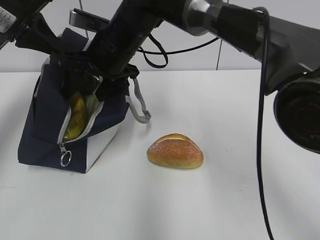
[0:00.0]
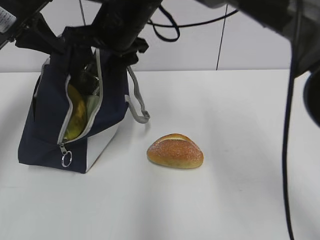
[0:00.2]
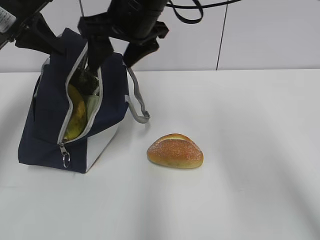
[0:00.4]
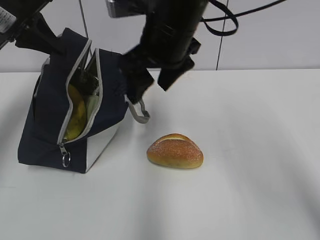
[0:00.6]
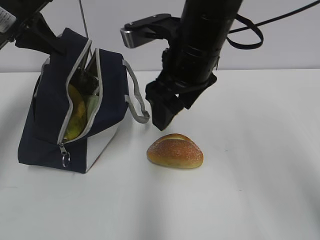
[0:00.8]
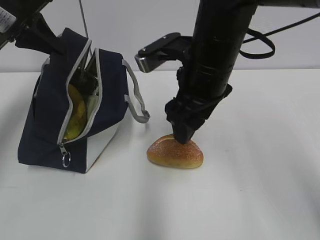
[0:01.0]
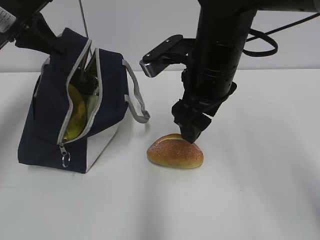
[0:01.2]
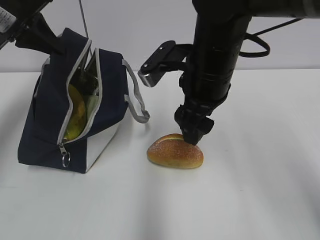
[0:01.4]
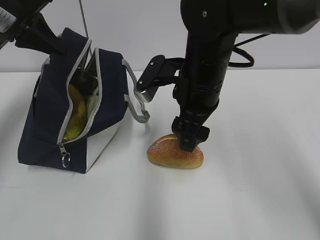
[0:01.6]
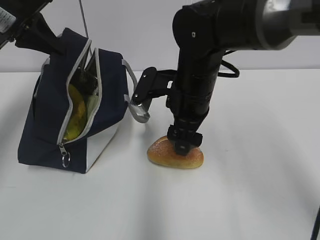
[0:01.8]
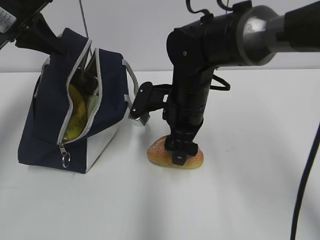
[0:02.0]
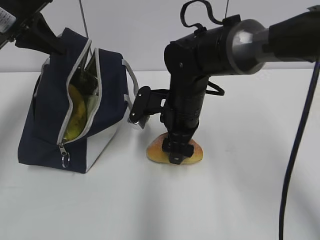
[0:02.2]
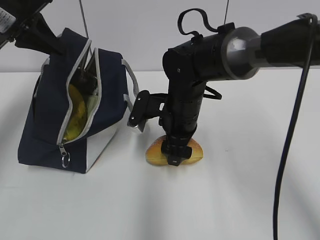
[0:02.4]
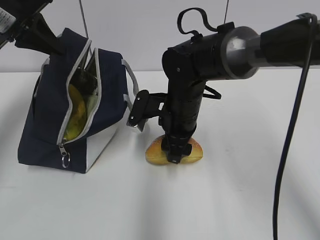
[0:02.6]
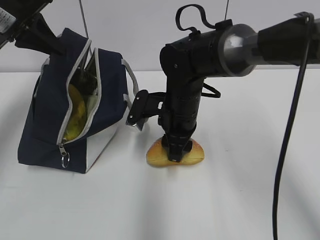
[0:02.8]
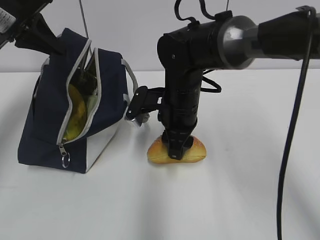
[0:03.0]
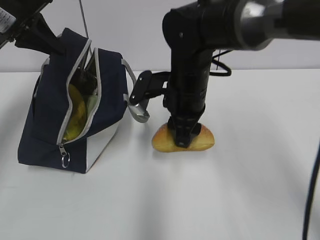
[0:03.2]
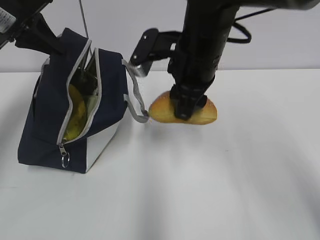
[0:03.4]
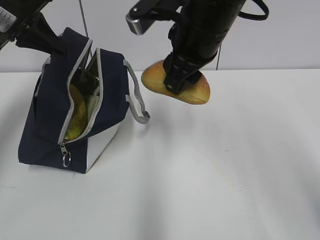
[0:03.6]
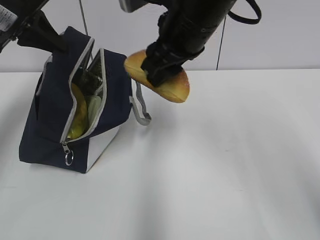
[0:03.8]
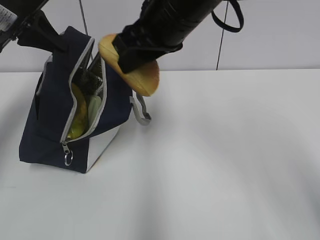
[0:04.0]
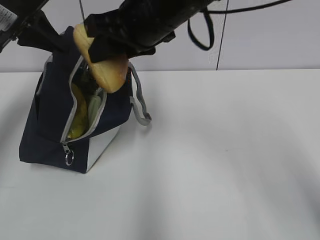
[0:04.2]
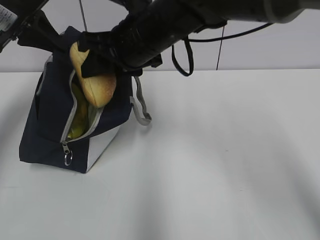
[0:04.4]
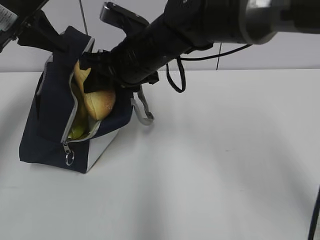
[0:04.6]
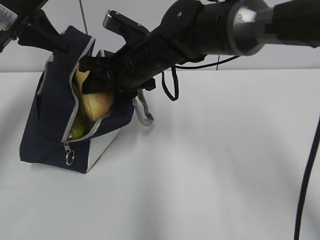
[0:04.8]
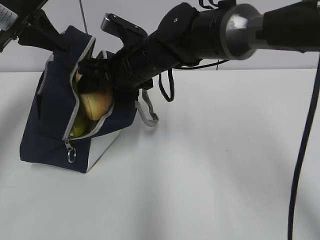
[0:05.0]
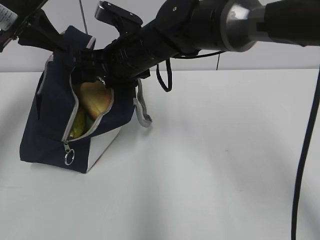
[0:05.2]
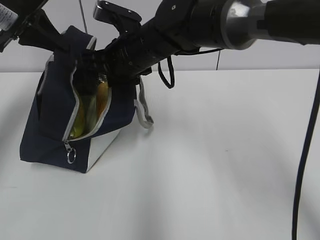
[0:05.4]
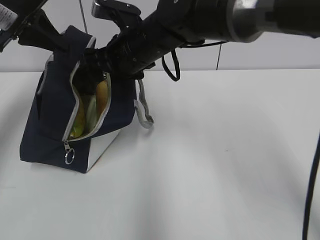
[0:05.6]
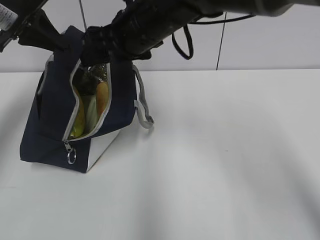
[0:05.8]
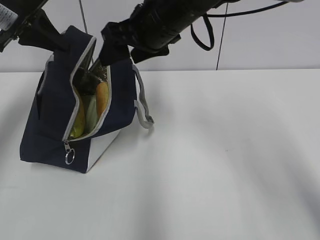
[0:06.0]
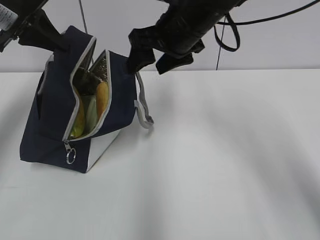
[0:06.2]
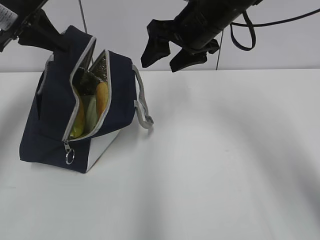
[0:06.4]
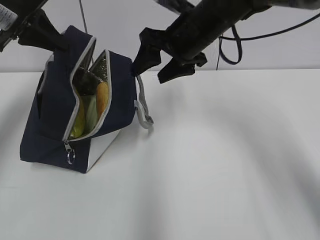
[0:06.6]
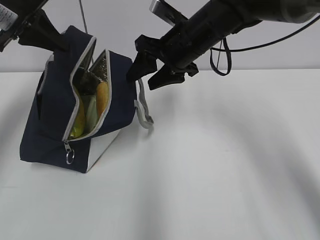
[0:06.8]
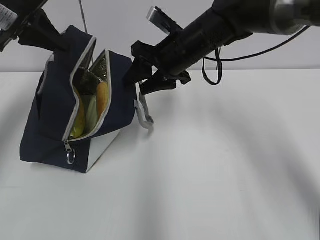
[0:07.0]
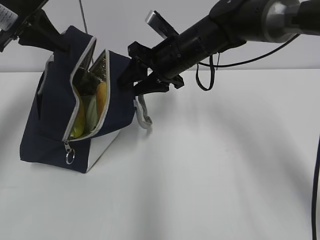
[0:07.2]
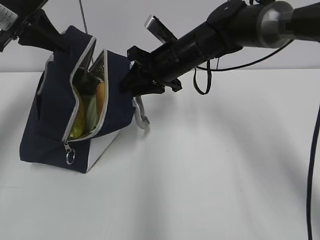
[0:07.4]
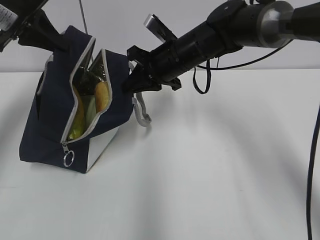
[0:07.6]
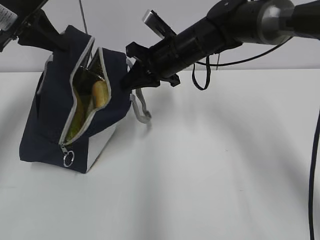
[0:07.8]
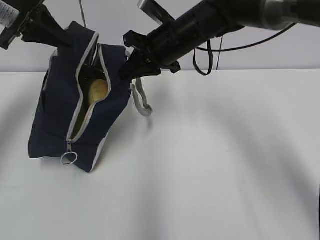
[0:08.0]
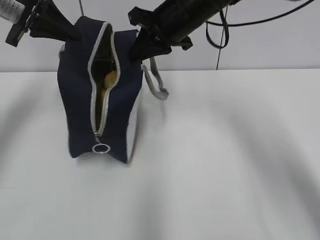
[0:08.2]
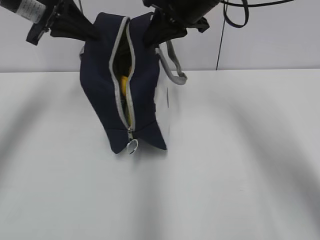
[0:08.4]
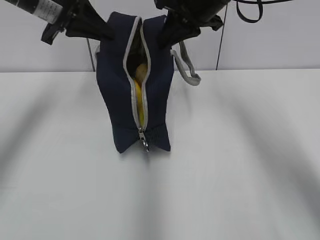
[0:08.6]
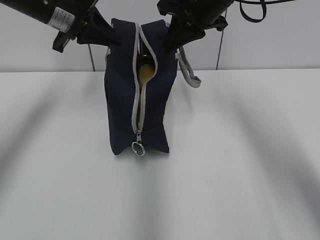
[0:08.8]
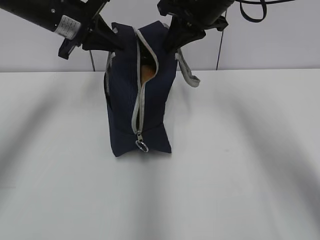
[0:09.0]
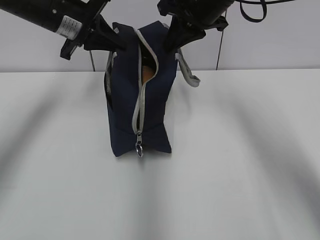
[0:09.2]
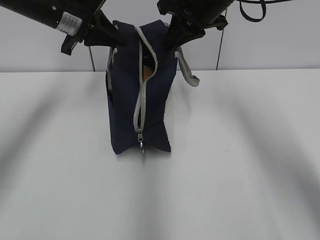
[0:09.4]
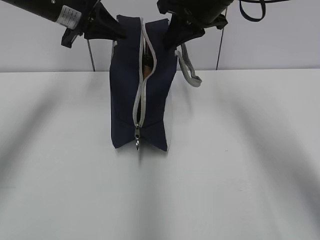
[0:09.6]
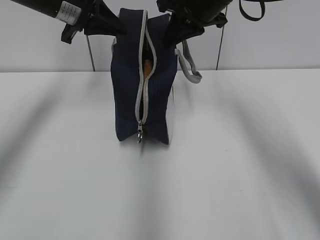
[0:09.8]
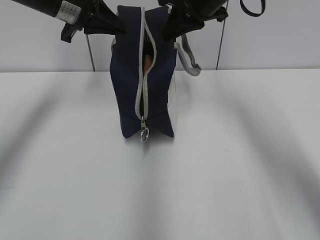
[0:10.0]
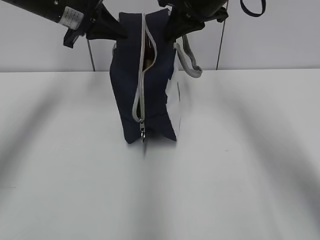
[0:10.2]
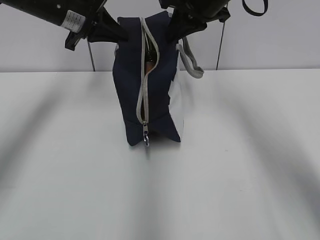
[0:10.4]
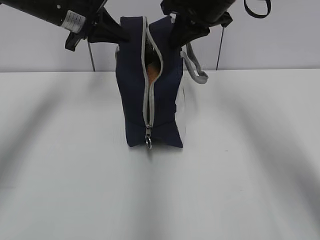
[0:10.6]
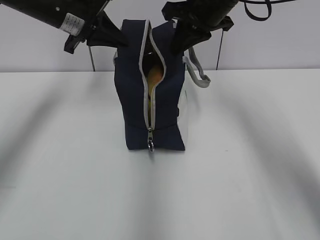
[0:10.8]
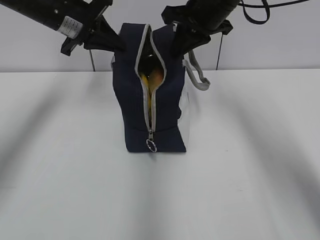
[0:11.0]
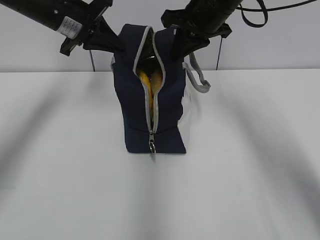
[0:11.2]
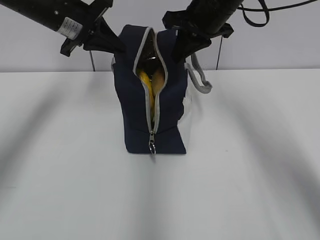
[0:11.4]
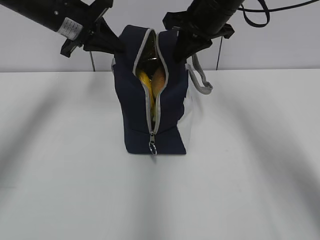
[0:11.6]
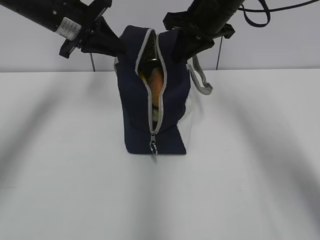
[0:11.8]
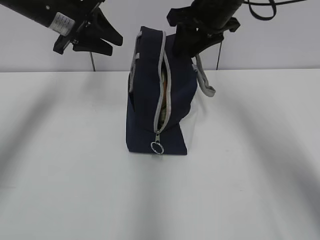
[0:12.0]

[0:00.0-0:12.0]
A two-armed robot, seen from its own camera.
Step, 0:00.2 to 0:02.6: Grab the bread with your right hand.
Step, 0:05.6 to 0:07.6: Grab the lunch bag with your right hand.
Step, 0:07.8 to 0:12.0: Move the lunch bag to the right.
0:00.0 to 0:01.6: The right gripper travels to the right and backward by roughly 15 cm.
0:01.6 to 0:03.0: The right gripper shifts about 5 cm downward, and closes.
0:03.0 to 0:04.4: The right gripper is displaced upward by about 10 cm.
0:04.4 to 0:06.0: The right gripper opens.
0:06.0 to 0:07.6: The right gripper travels downward by approximately 10 cm, and closes up.
0:07.6 to 0:09.0: The right gripper moves upward and to the right, approximately 10 cm. Meanwhile the left gripper heads to the right, covering about 10 cm.
0:09.0 to 0:10.4: The grippers make only small movements.
0:10.4 to 0:12.0: The right gripper opens its fingers. Meanwhile the left gripper opens its fingers.

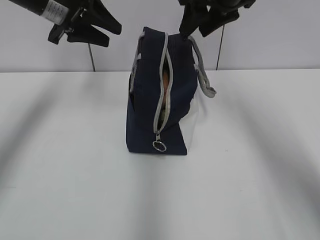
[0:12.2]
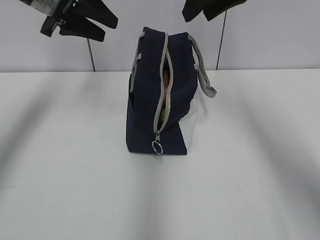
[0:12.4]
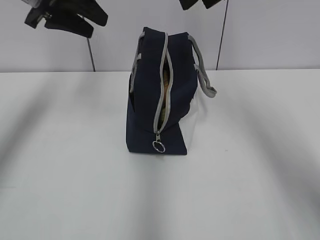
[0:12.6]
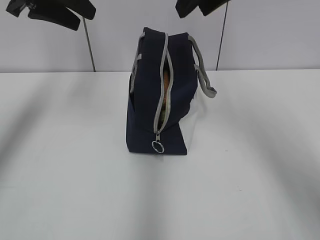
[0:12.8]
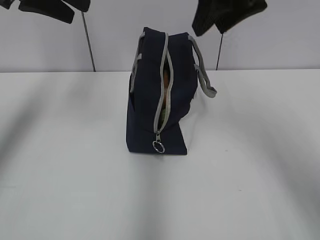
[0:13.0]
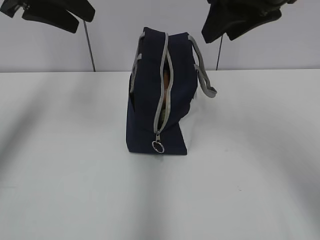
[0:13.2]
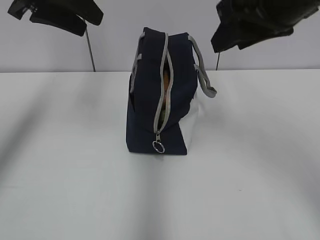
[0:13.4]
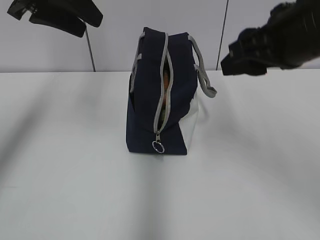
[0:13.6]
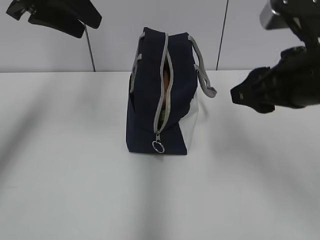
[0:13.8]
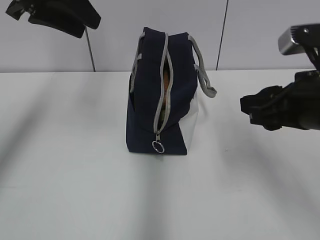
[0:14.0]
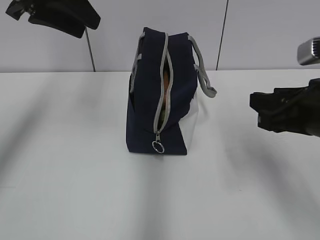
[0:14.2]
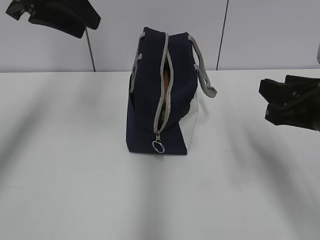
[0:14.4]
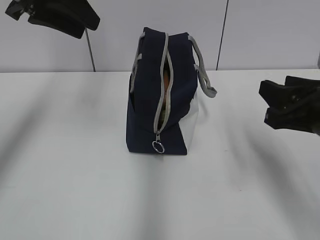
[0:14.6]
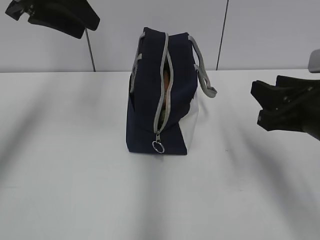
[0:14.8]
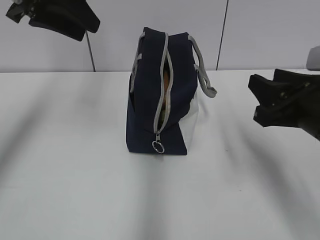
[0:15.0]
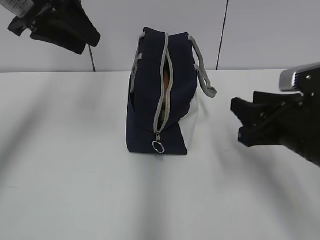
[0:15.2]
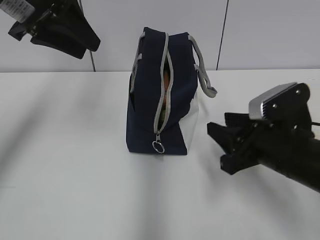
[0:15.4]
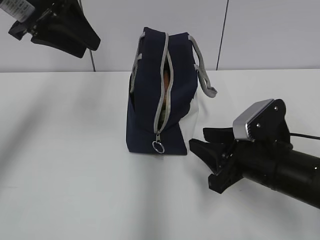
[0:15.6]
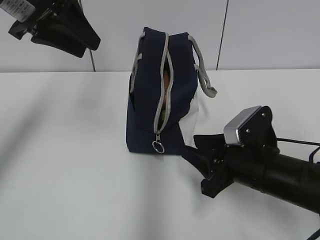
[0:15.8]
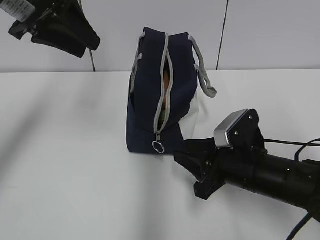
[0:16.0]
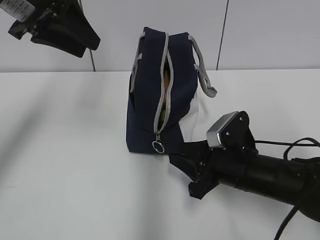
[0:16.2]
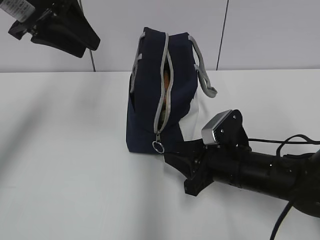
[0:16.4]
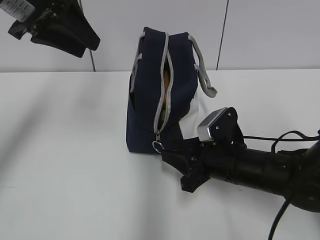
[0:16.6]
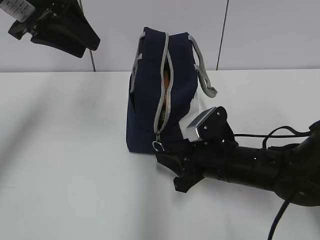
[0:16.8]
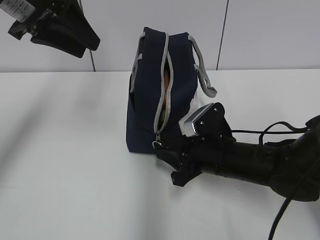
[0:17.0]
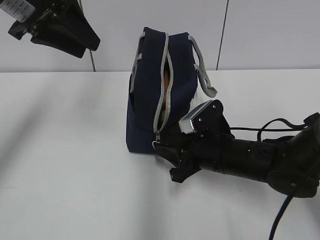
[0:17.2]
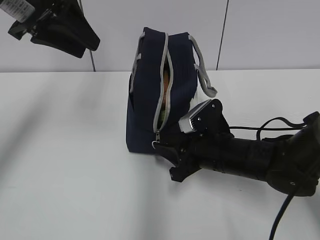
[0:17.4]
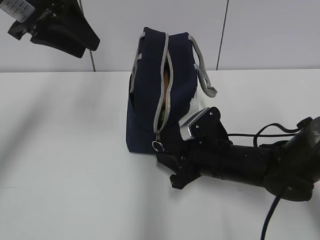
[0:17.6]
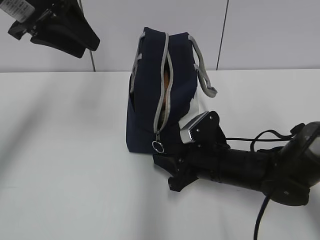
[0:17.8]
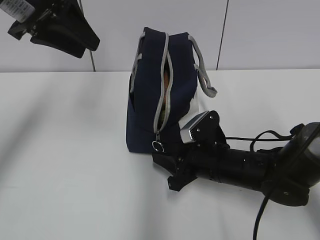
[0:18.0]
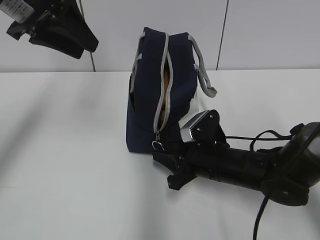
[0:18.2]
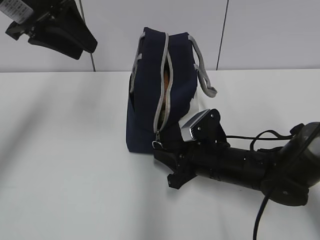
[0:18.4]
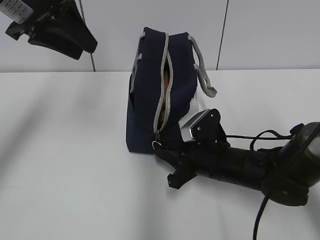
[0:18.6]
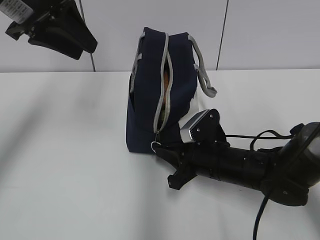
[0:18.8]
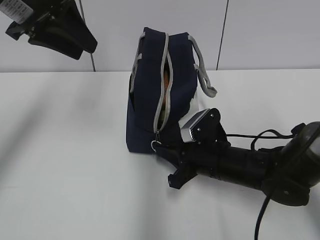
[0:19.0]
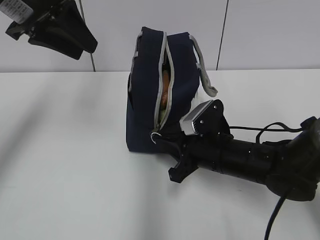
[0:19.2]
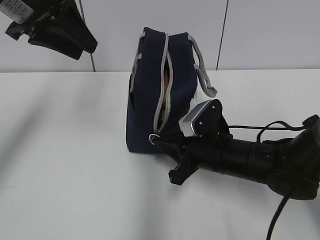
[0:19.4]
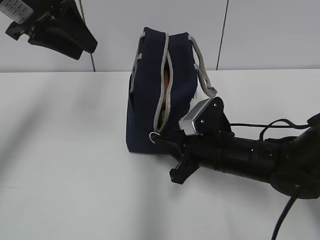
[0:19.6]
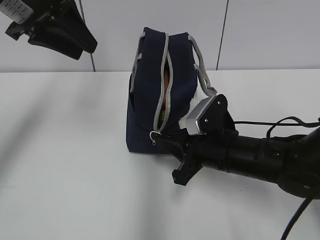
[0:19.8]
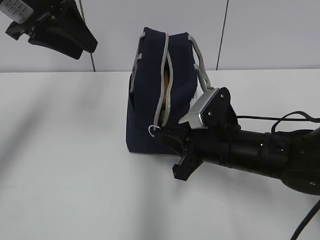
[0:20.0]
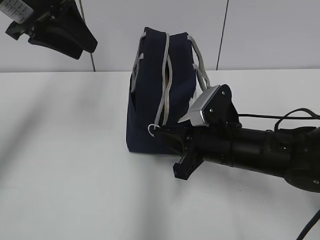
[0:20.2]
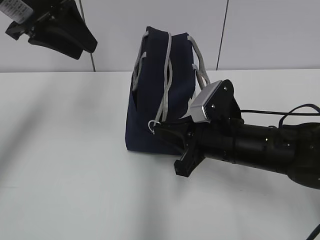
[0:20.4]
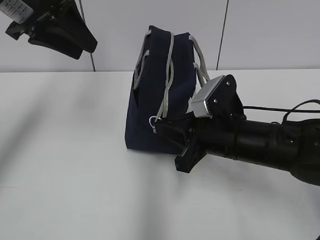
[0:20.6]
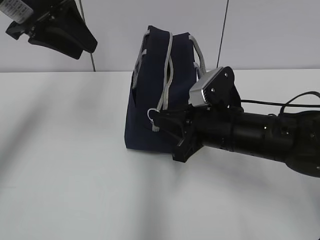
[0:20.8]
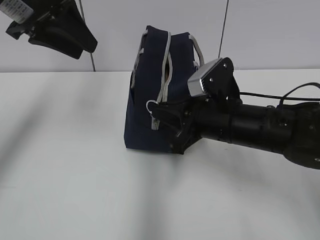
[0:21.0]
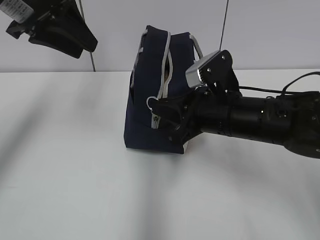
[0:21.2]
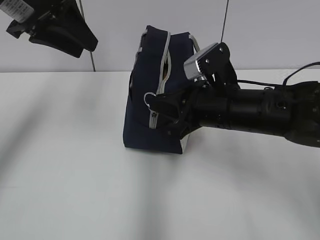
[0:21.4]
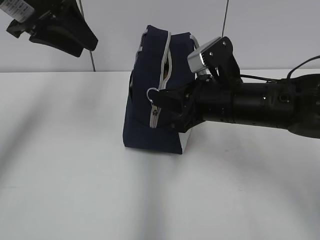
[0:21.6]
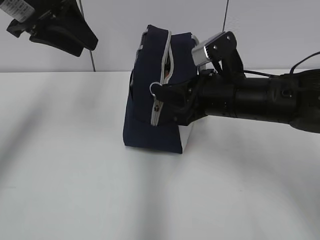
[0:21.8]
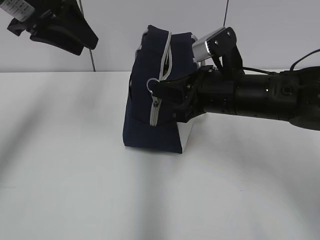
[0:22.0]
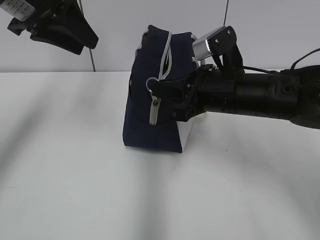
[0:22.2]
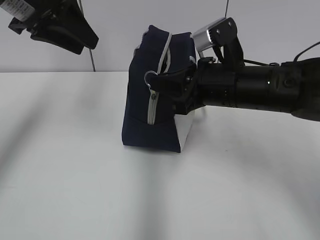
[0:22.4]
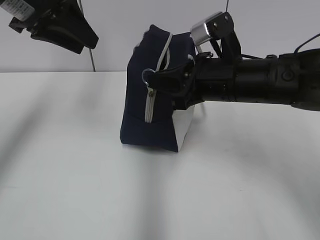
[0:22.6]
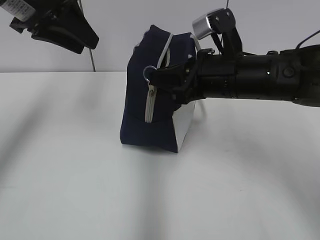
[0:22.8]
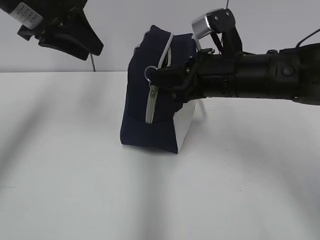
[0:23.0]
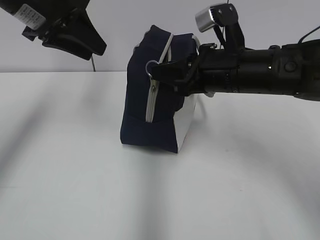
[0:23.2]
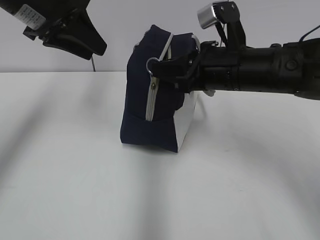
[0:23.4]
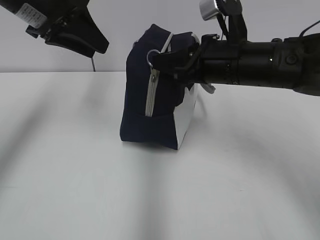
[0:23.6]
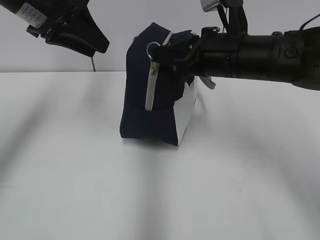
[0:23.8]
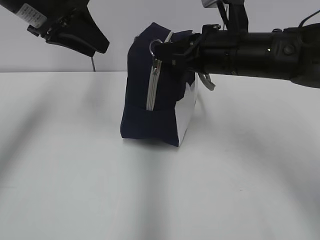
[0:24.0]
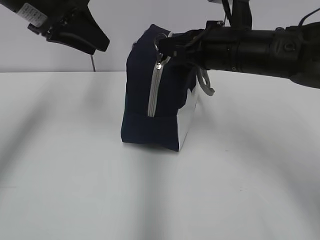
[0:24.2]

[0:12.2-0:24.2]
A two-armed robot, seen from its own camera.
0:12.2 to 0:13.8: The right gripper is displaced backward and downward by about 20 cm, while the left gripper is displaced backward and upward by some 10 cm.
0:13.8 to 0:15.2: The right gripper heads downward, covering roughly 10 cm.
0:15.2 to 0:16.6: The right gripper heads downward and to the left, covering some 10 cm.
0:16.6 to 0:19.8: There are only small adjustments of the grippers.
0:19.8 to 0:21.2: The right gripper goes roughly 5 cm upward.
0:21.2 to 0:22.6: The right gripper shifts by roughly 5 cm.
0:22.6 to 0:24.2: There are only small adjustments of the grippers.
